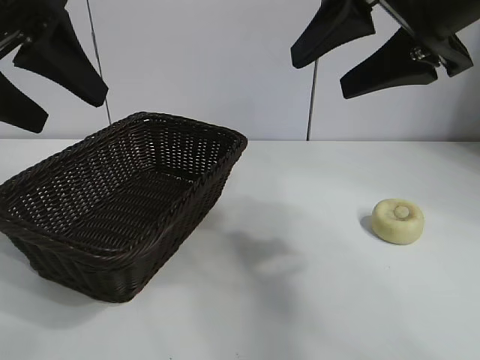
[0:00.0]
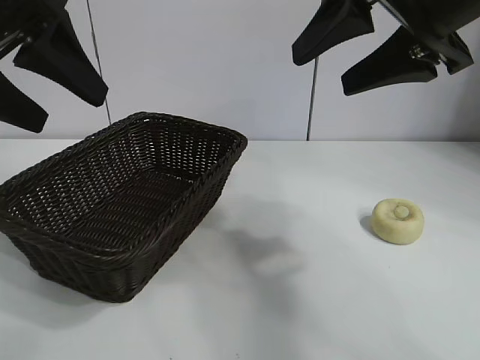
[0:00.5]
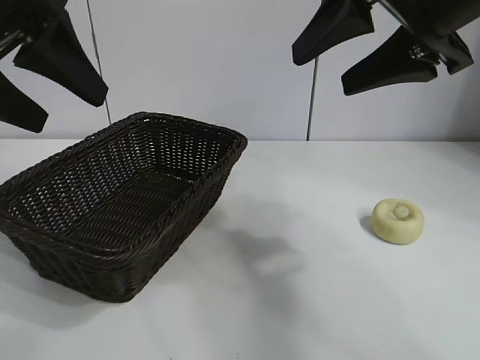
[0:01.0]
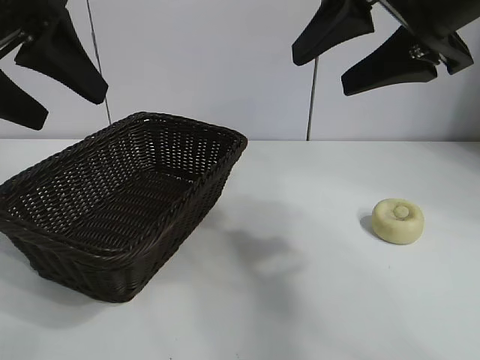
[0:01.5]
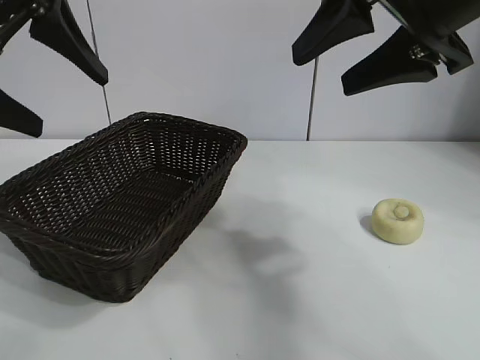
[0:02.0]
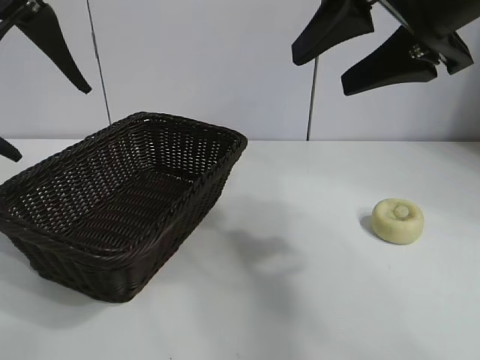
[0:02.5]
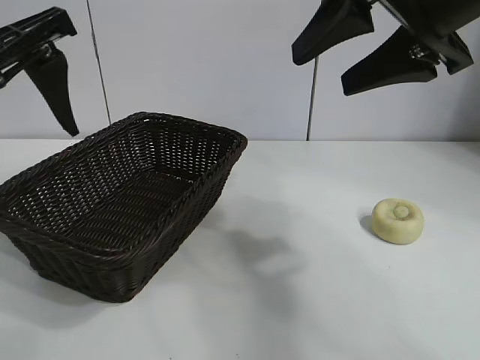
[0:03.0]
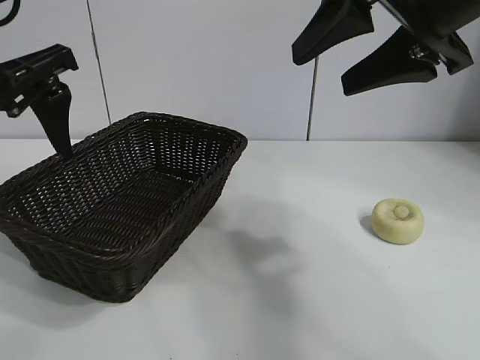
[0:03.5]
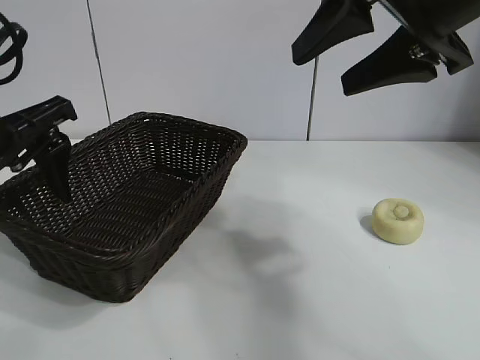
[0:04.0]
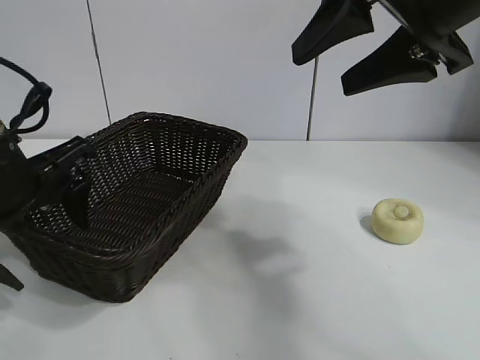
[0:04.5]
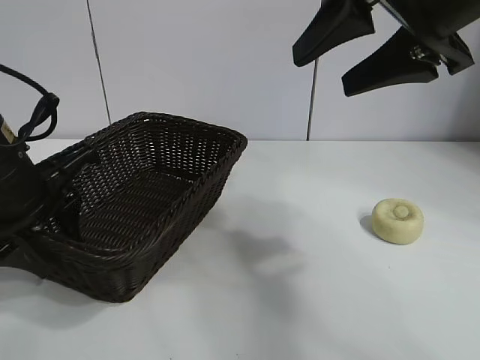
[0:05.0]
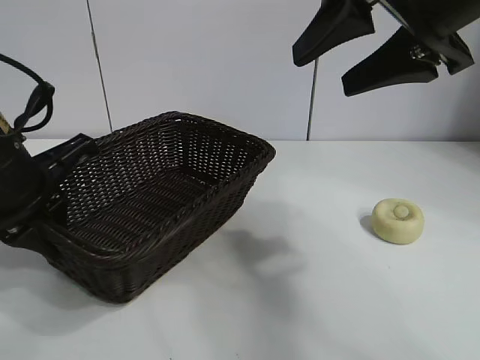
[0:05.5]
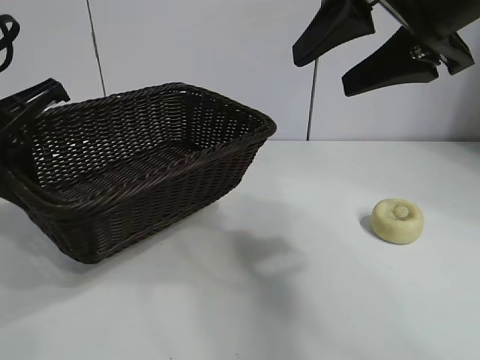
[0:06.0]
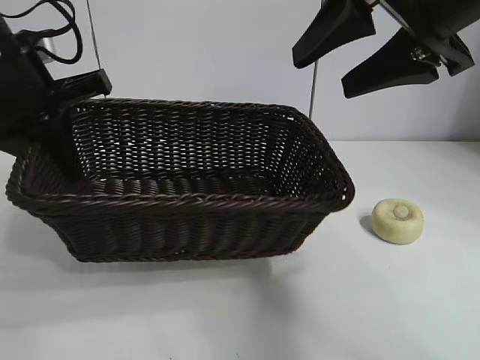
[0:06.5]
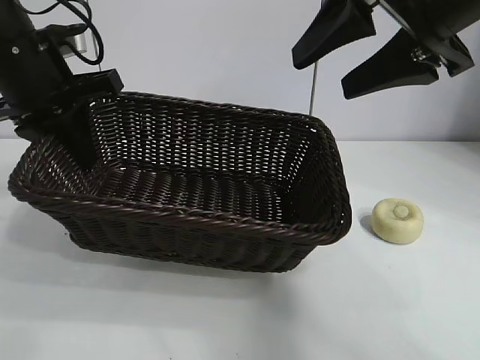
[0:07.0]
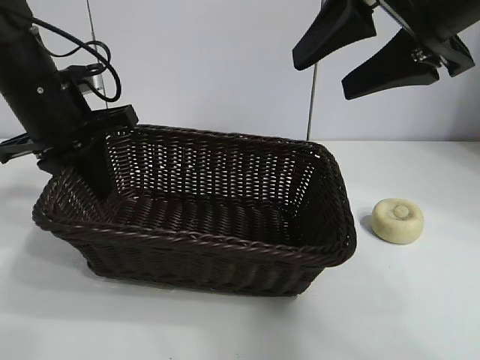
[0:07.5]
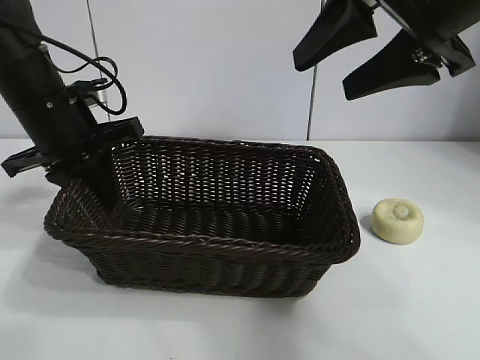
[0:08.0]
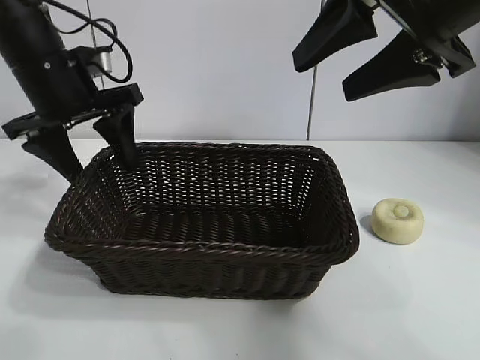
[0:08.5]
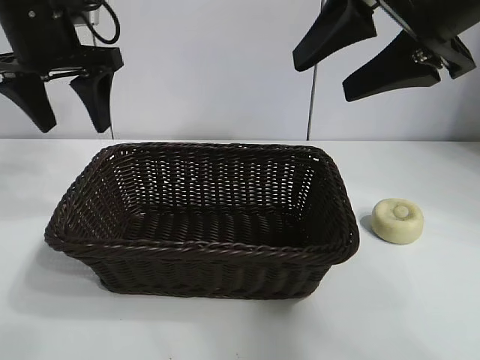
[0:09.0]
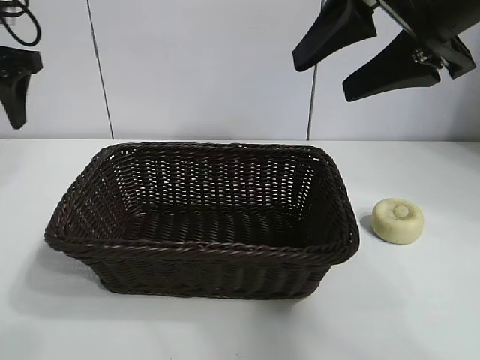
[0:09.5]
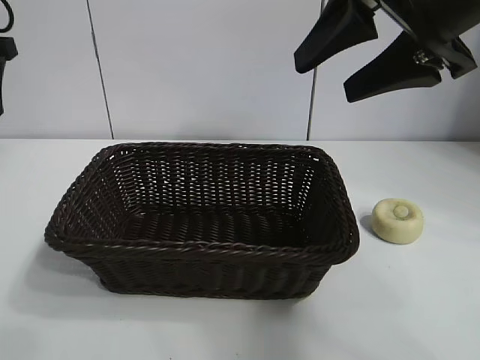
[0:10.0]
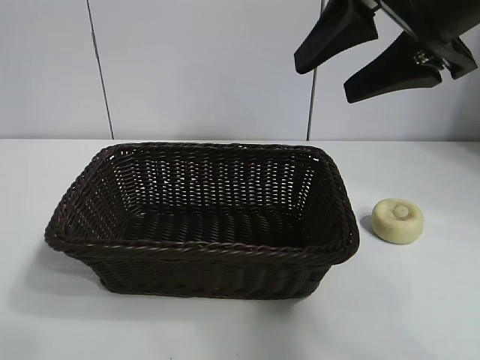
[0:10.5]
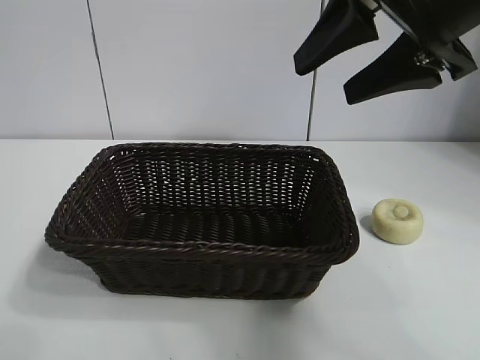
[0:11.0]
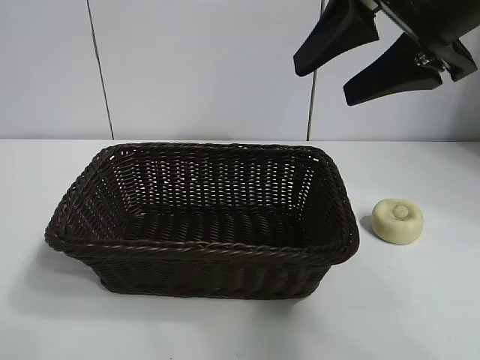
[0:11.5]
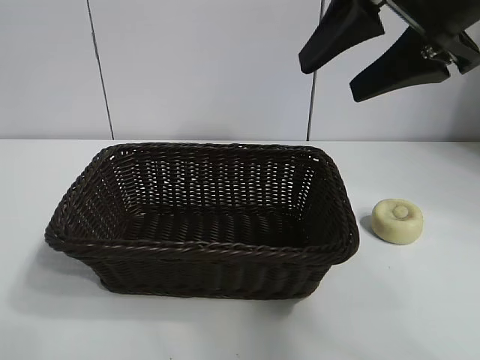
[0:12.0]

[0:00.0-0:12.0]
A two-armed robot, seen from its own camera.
Task of the whole recording: pick up the egg yolk pastry and put it into the basket.
Step, 0:05.5 to 0:08.5: Grasp the basket with left gripper.

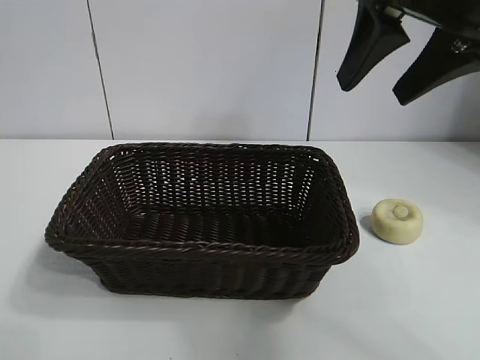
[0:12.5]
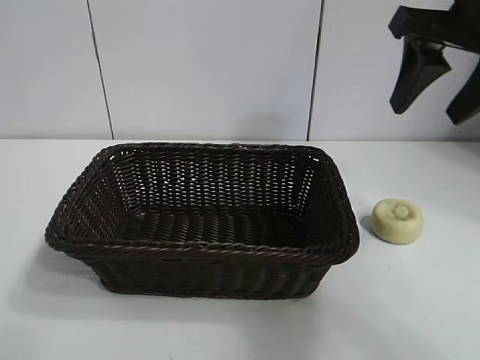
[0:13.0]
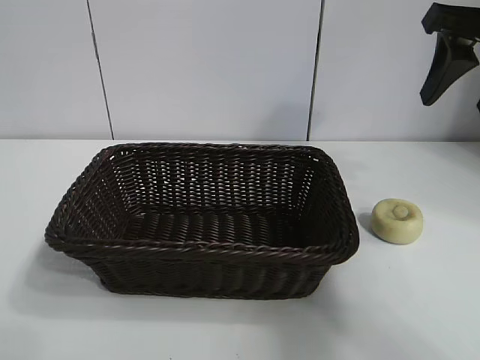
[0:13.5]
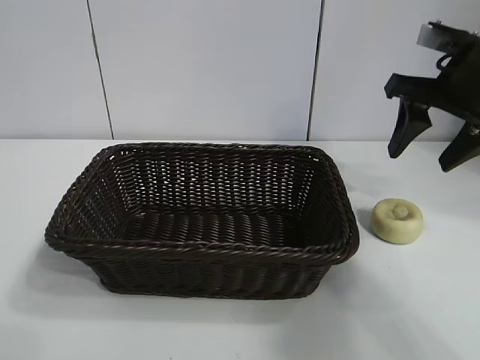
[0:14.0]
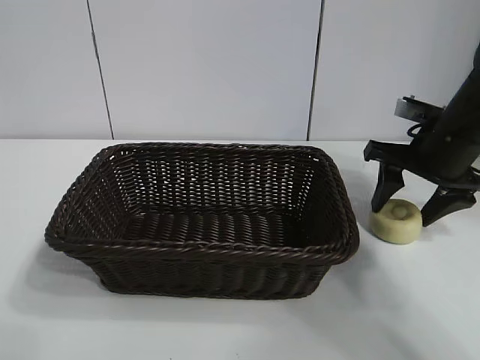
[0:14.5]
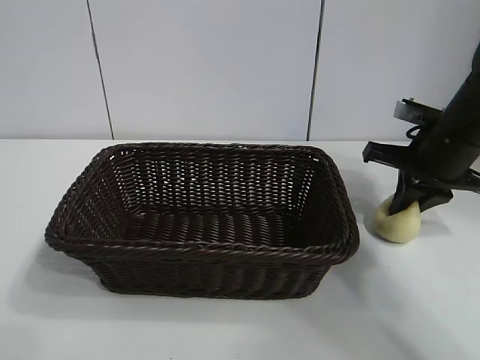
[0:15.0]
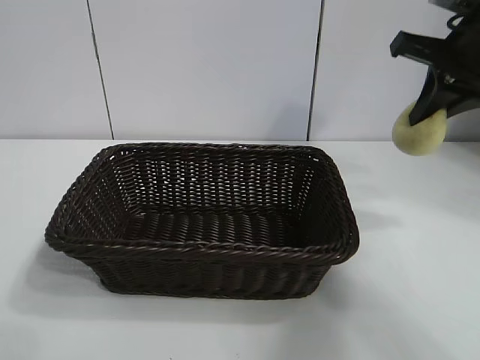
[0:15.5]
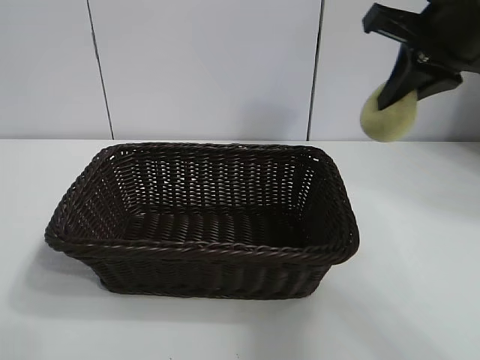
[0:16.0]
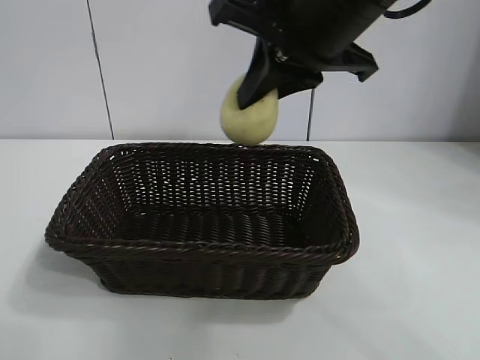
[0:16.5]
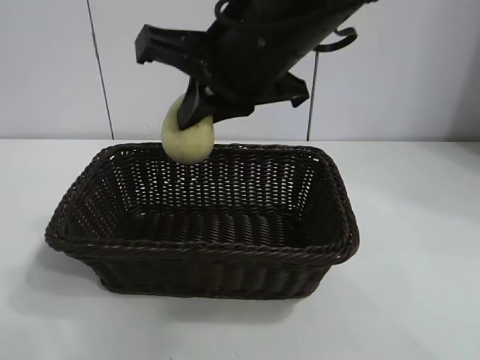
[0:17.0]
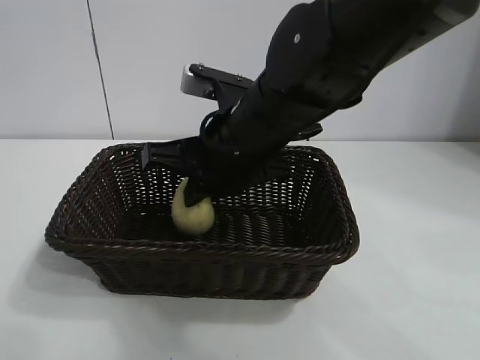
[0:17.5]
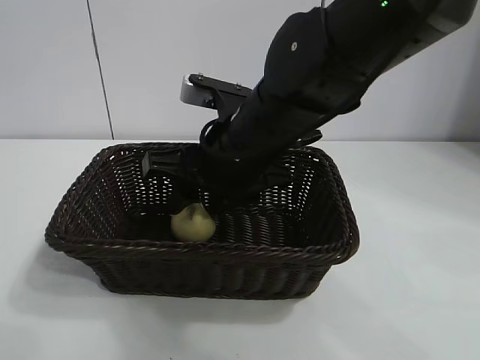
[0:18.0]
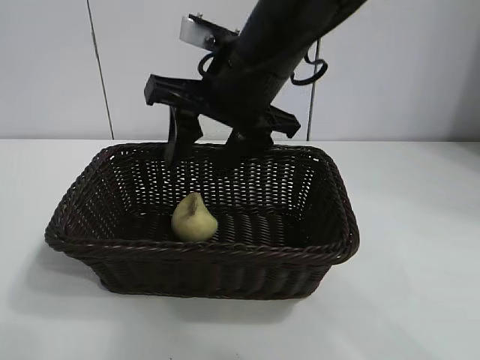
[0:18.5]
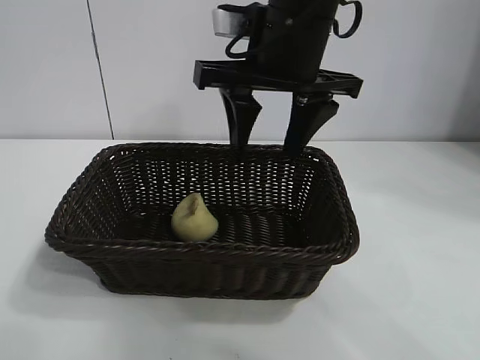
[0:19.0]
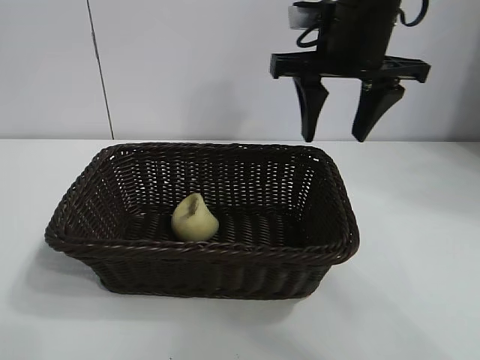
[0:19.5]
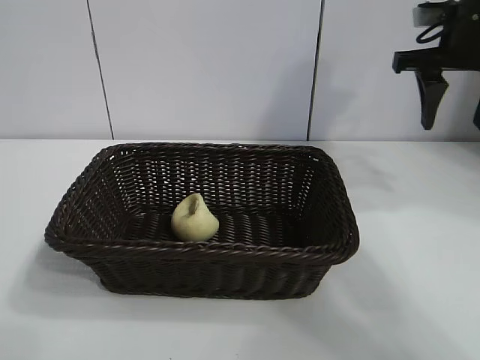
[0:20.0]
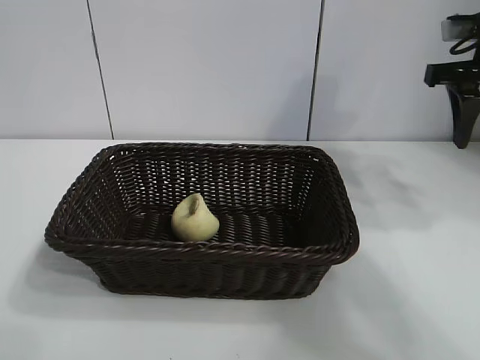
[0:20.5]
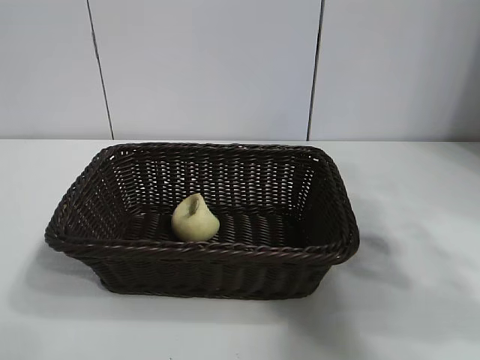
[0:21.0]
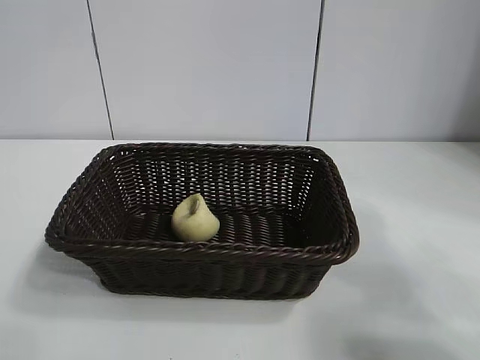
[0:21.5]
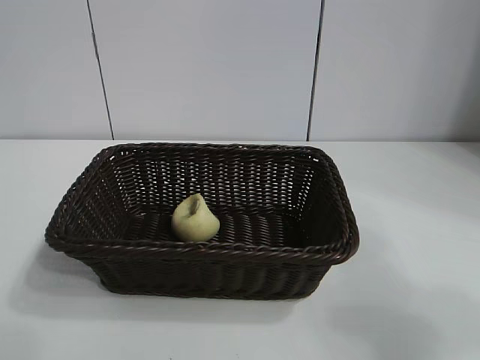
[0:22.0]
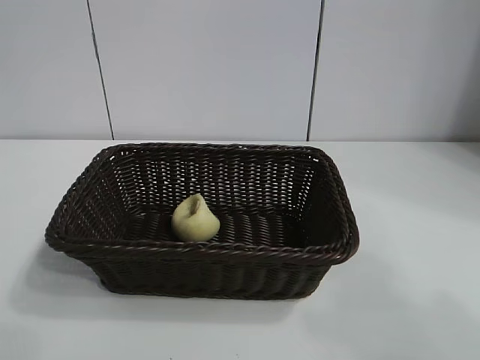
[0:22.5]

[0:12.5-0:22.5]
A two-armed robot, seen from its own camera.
Task of the whole recording: pick up the egg yolk pastry and put it into the basket.
Step, 0:12.5 to 0:14.5: Place the basket in the center of view with left gripper.
Step, 0:15.0 to 0:18.0: Grasp egg yolk pastry with right gripper.

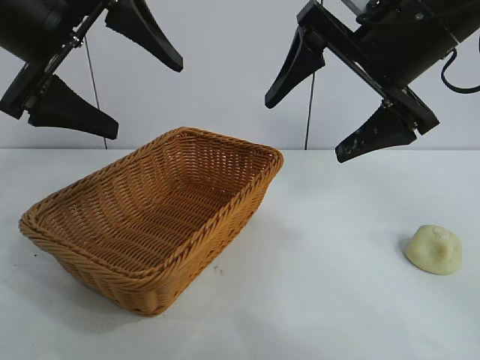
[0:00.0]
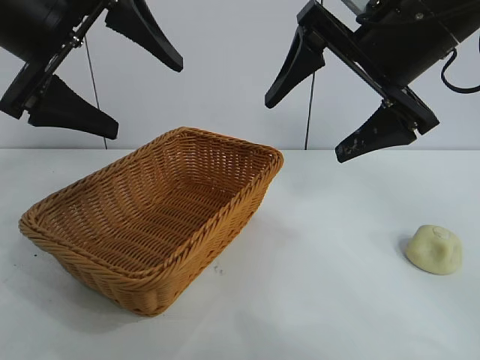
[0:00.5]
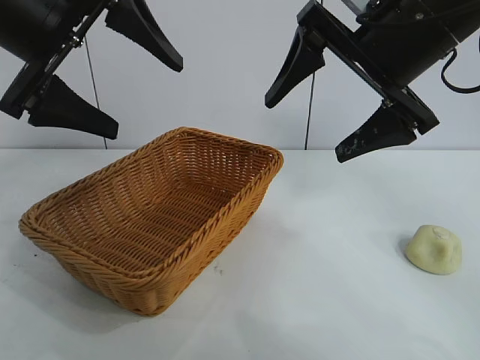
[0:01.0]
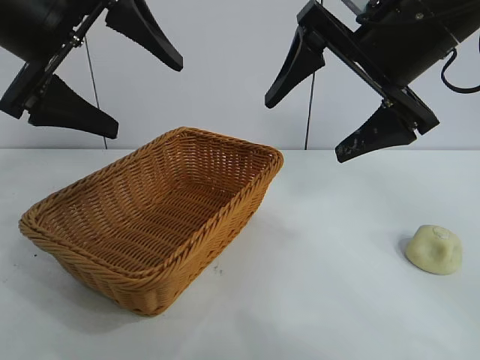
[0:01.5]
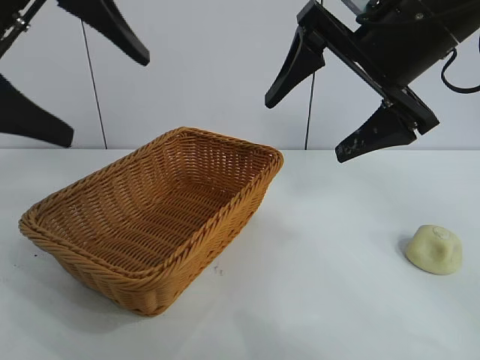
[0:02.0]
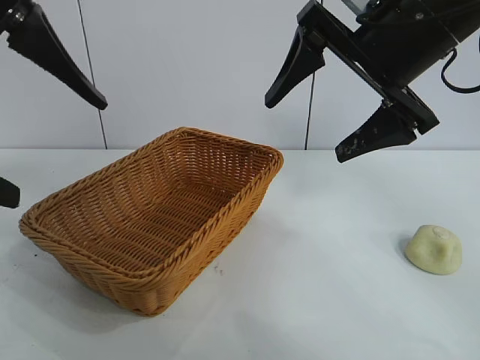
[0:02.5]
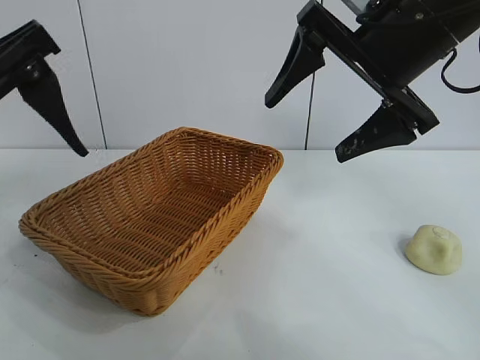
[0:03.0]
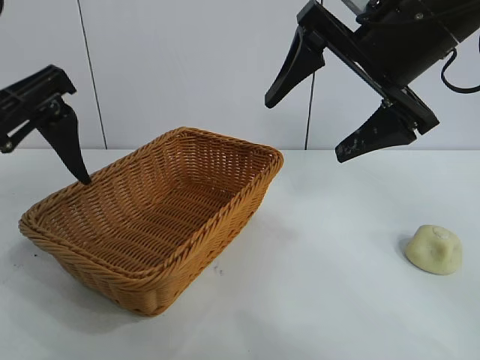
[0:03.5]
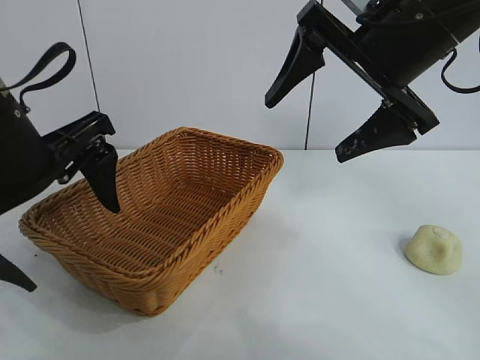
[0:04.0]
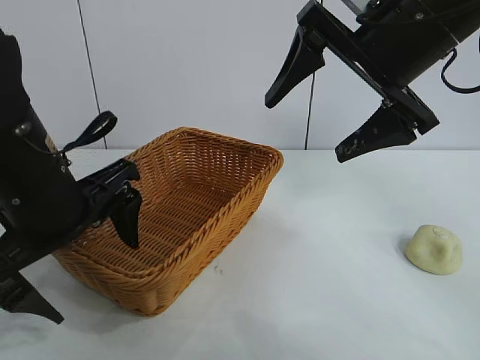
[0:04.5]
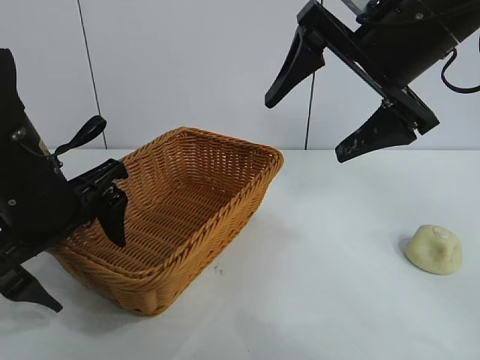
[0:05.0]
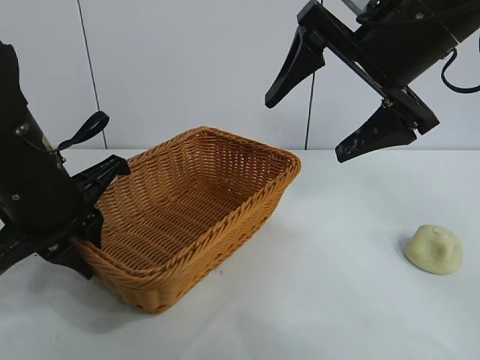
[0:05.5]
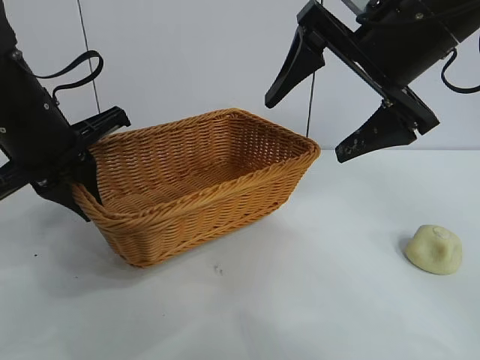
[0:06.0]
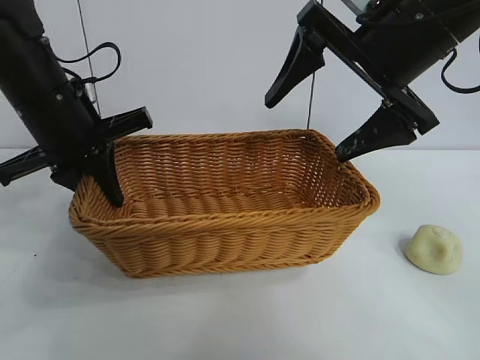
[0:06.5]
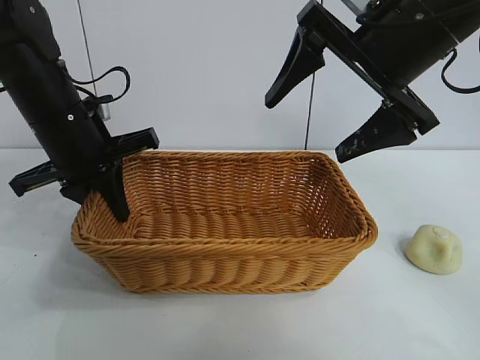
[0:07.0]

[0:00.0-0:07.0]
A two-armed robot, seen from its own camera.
Task of the whole recording: pick up the egg yolk pastry and put it into the basket.
Step, 0:01.5 to 0:05.0: Grasp the basket with left gripper.
